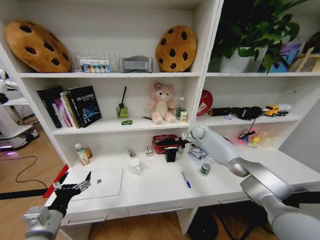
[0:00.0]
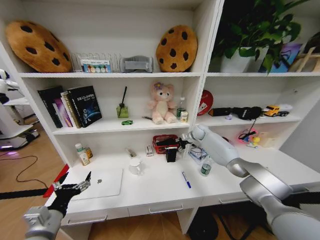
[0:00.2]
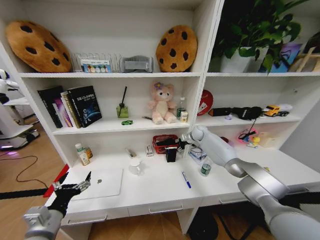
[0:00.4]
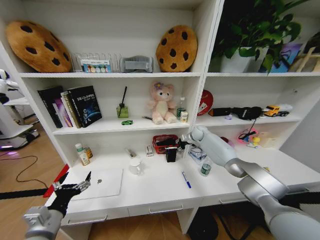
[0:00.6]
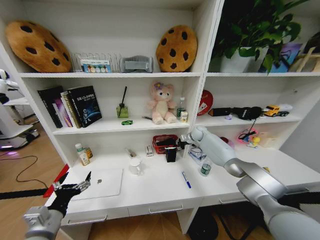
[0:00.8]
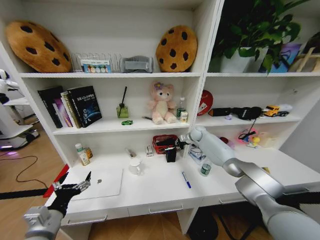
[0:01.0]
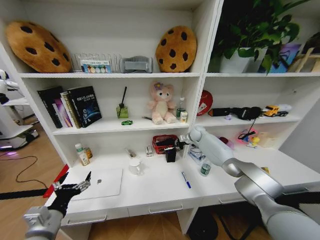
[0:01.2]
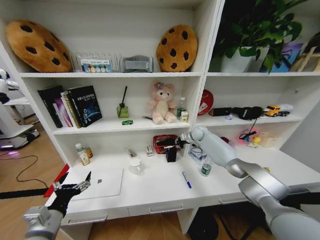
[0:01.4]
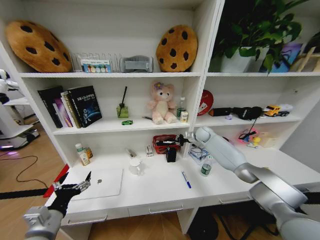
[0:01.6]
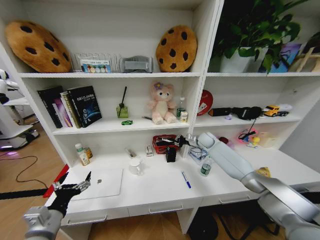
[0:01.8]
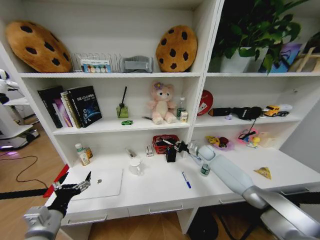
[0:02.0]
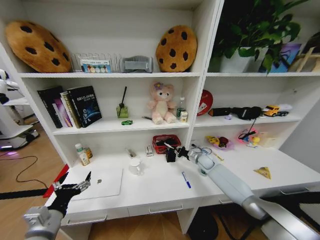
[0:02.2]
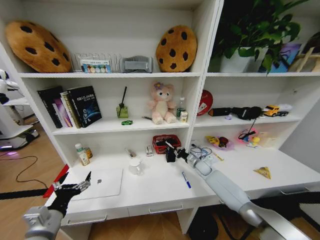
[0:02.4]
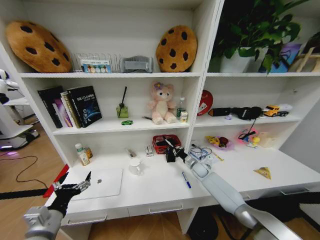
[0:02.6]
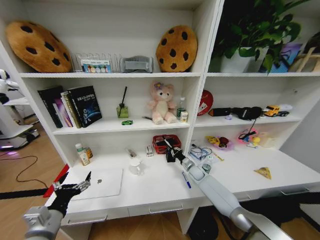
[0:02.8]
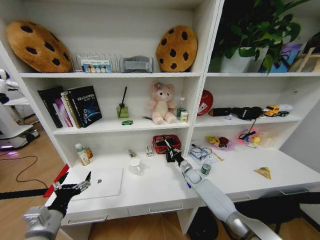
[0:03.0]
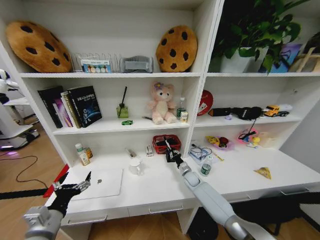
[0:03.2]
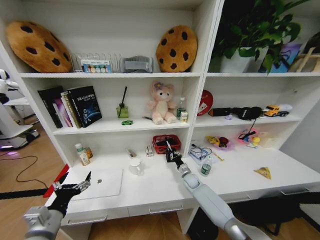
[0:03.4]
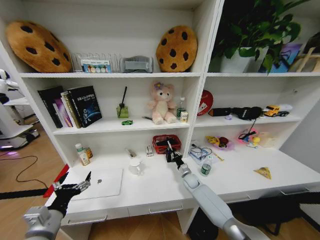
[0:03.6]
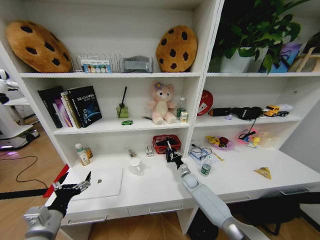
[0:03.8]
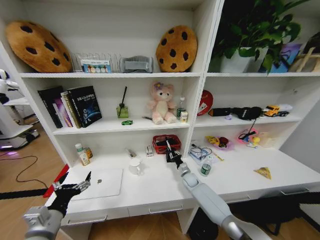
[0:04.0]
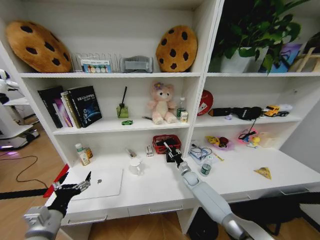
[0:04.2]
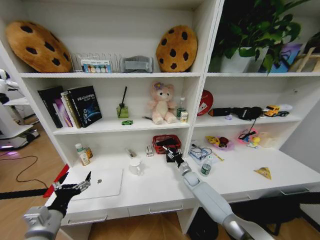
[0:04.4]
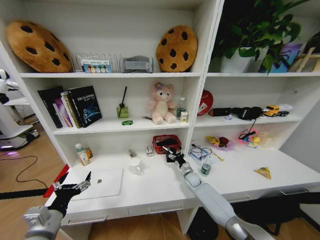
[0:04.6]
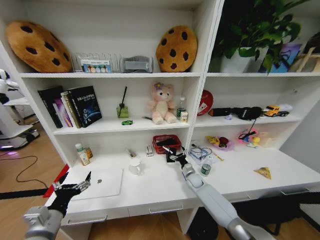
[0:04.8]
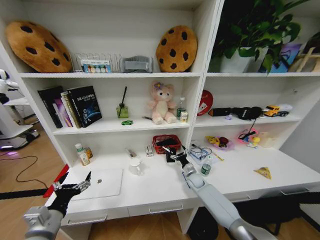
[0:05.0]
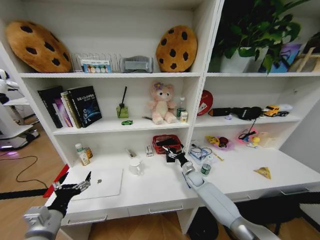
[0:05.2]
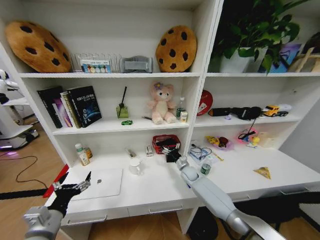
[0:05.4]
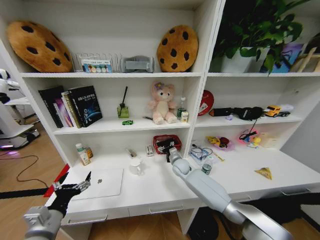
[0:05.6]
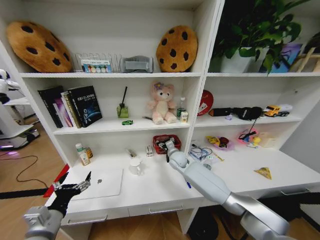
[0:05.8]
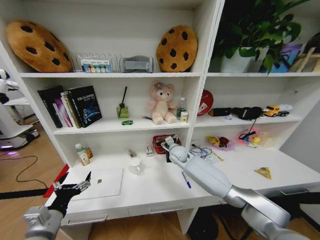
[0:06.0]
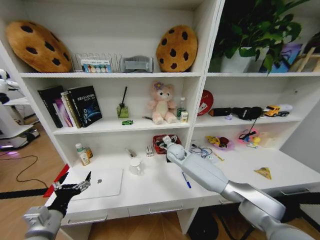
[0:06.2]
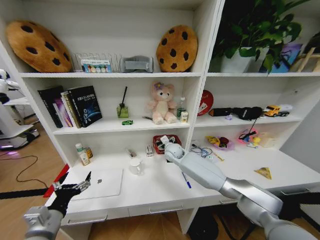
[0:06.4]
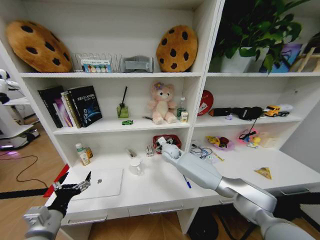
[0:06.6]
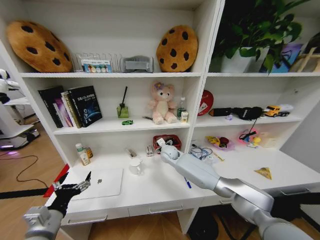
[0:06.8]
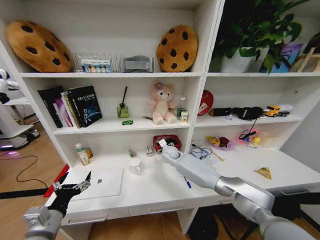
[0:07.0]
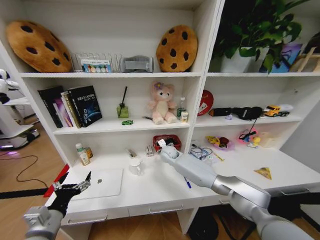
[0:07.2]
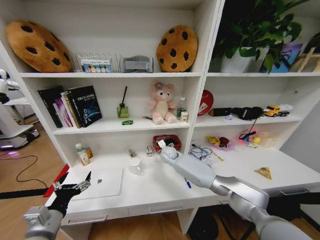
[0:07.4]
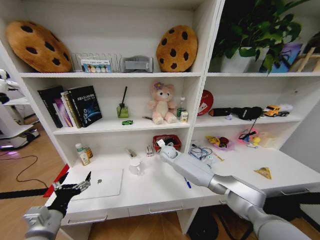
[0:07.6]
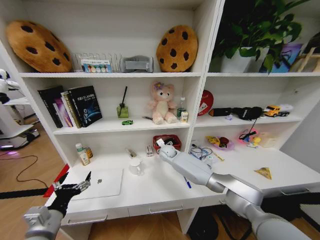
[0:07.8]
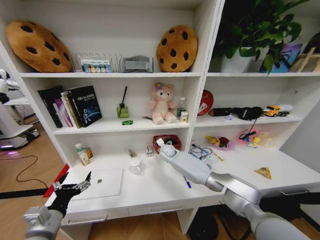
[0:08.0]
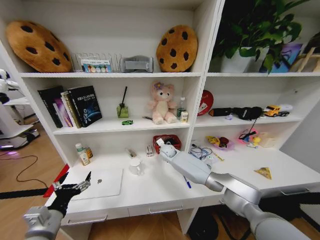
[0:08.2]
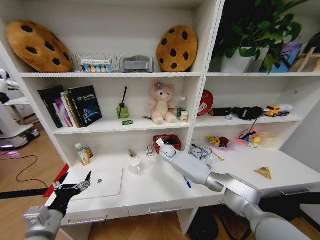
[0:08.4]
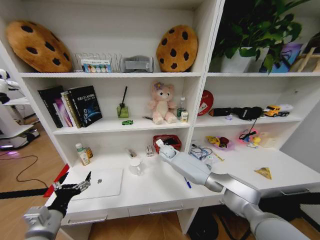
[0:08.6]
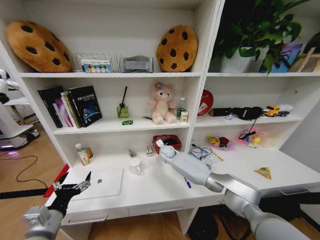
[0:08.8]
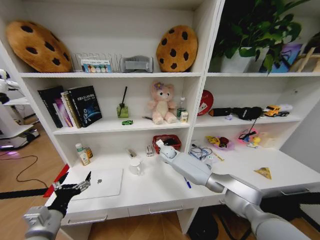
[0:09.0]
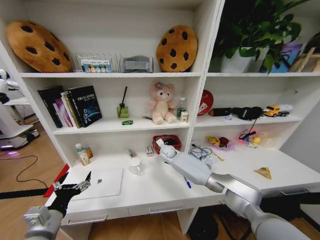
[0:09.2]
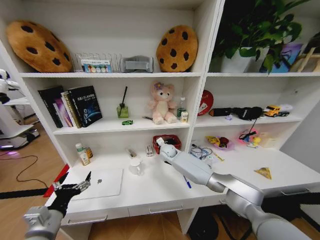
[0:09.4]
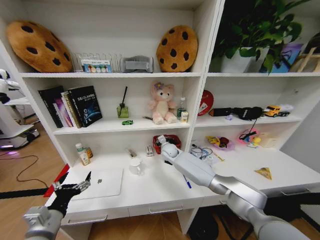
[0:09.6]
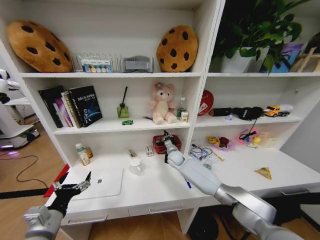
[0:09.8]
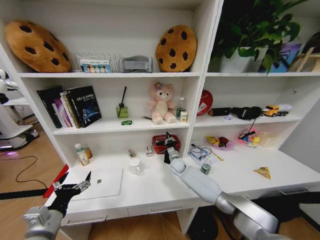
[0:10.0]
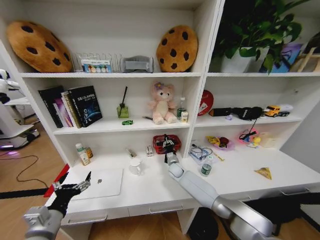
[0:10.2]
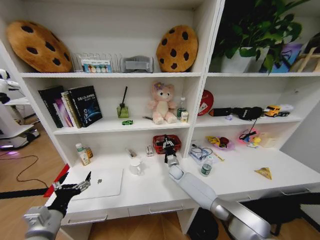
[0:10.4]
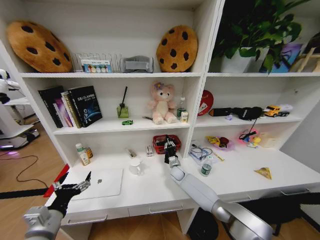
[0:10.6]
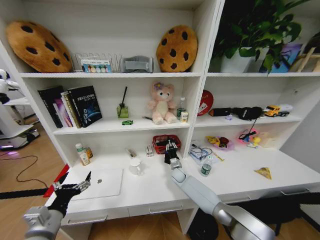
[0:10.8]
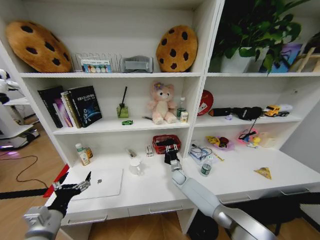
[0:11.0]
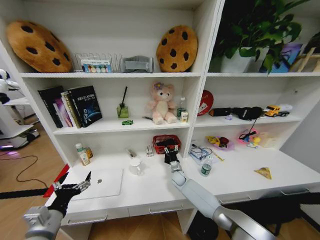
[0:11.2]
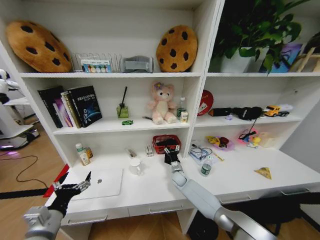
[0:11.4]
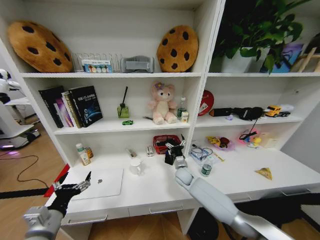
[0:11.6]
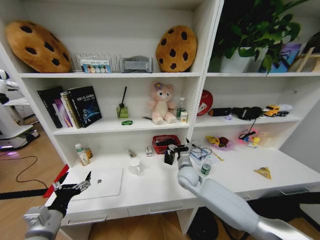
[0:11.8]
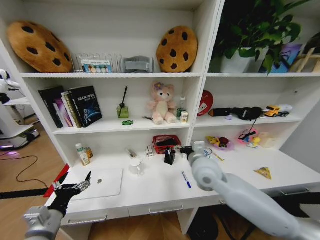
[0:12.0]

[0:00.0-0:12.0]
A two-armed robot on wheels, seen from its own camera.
Task of the whole recording: Organize the objects on the table.
0:00.0 to 0:01.6: The right gripper closes up.
0:01.6 to 0:03.0: The right gripper goes approximately 25 cm downward and backward.
0:03.0 to 0:04.4: The right gripper opens its fingers.
0:04.4 to 0:06.0: The right gripper is displaced upward and to the left by approximately 25 cm.
0:06.0 to 0:07.6: The right gripper moves roughly 5 cm.
0:07.6 to 0:09.0: The right gripper closes.
0:09.0 to 0:10.4: The right gripper is displaced downward and to the right by some 15 cm.
0:10.4 to 0:12.0: The right gripper moves upward and backward, approximately 30 cm, and opens.

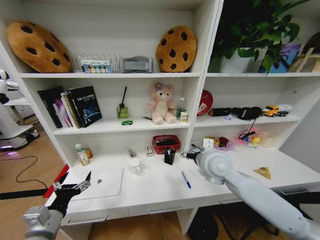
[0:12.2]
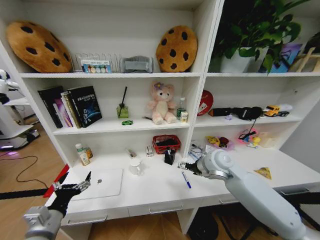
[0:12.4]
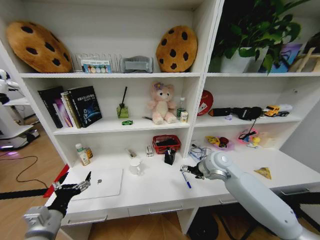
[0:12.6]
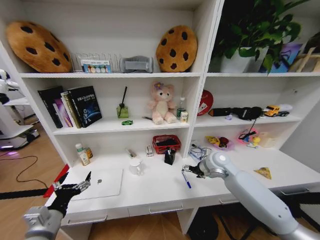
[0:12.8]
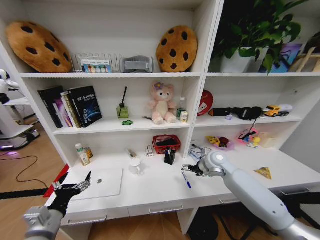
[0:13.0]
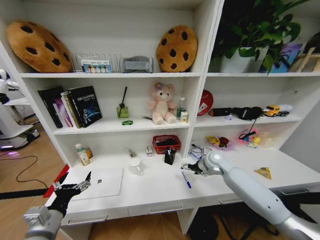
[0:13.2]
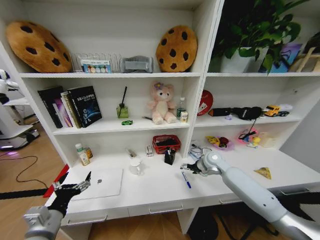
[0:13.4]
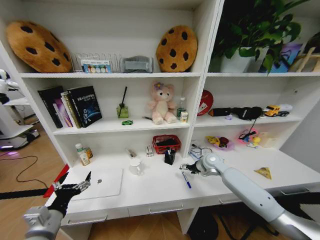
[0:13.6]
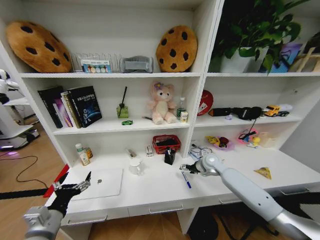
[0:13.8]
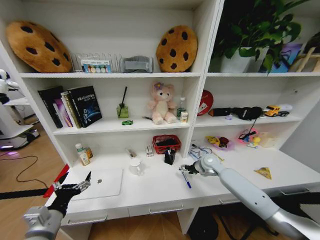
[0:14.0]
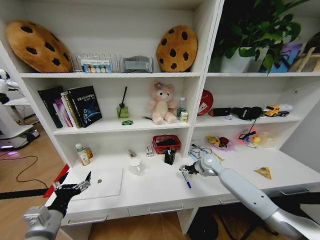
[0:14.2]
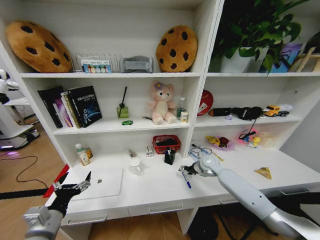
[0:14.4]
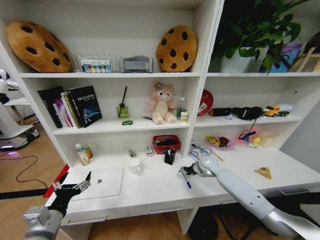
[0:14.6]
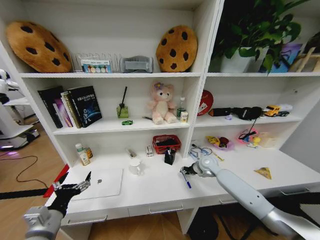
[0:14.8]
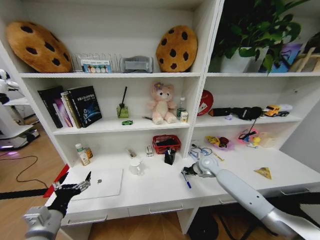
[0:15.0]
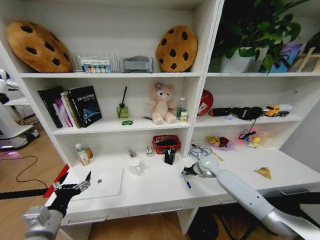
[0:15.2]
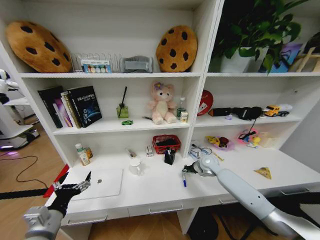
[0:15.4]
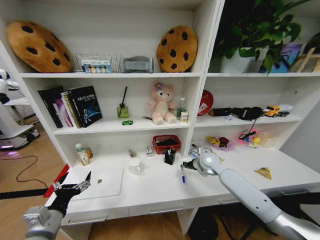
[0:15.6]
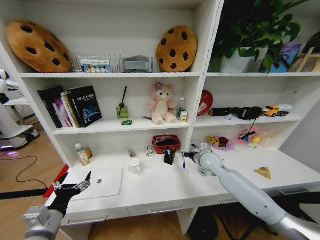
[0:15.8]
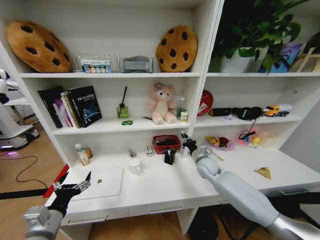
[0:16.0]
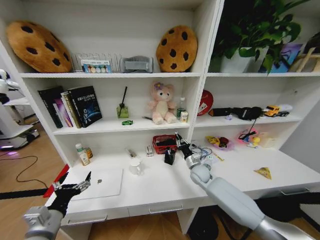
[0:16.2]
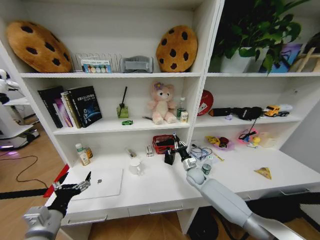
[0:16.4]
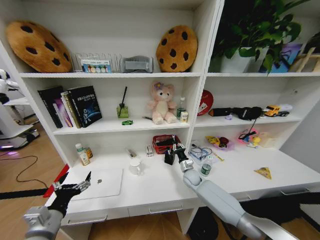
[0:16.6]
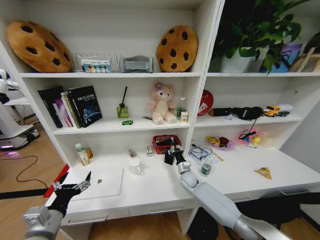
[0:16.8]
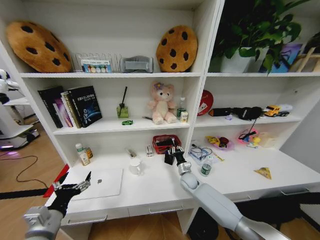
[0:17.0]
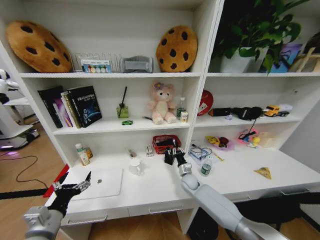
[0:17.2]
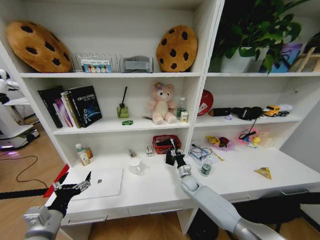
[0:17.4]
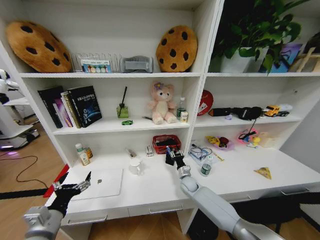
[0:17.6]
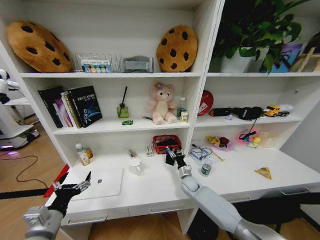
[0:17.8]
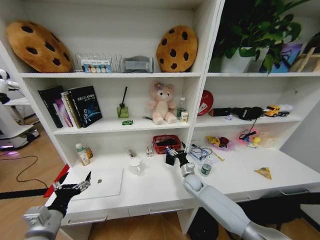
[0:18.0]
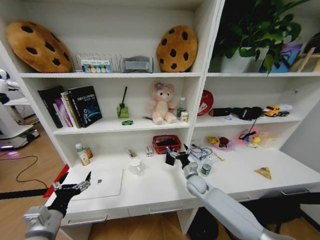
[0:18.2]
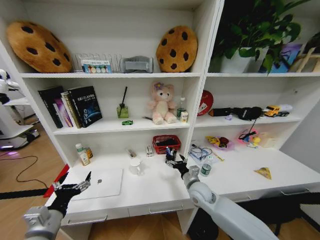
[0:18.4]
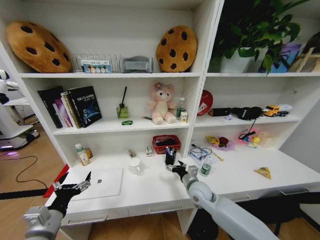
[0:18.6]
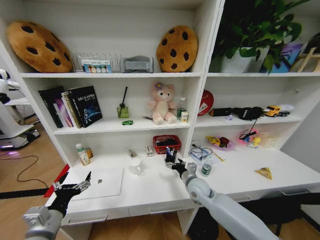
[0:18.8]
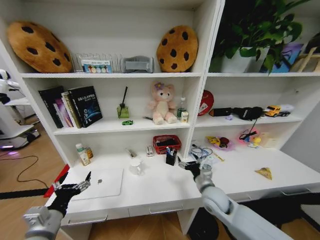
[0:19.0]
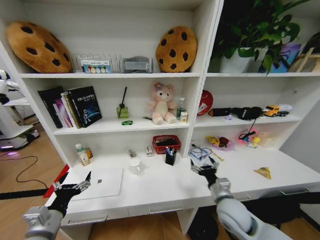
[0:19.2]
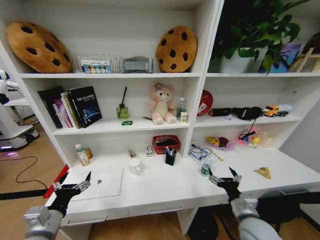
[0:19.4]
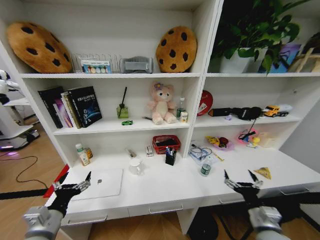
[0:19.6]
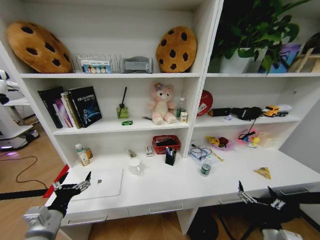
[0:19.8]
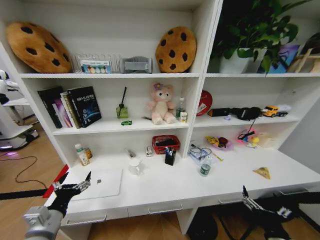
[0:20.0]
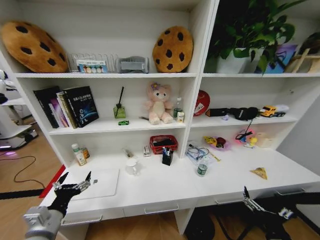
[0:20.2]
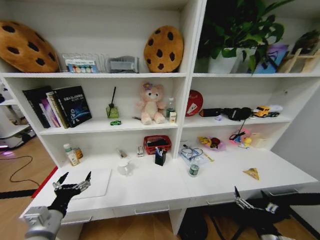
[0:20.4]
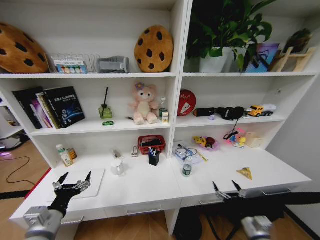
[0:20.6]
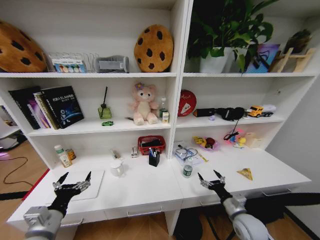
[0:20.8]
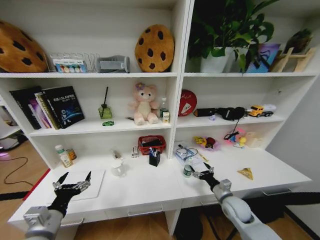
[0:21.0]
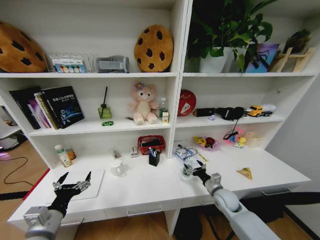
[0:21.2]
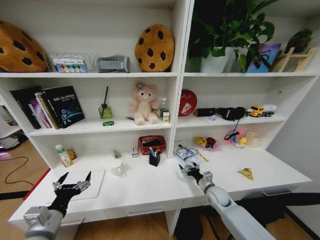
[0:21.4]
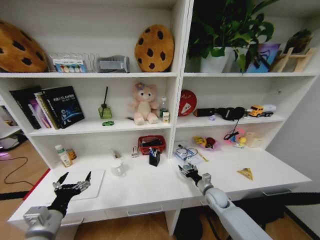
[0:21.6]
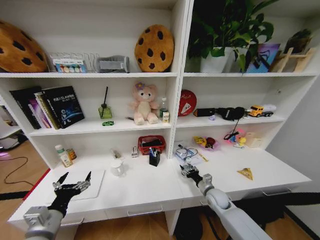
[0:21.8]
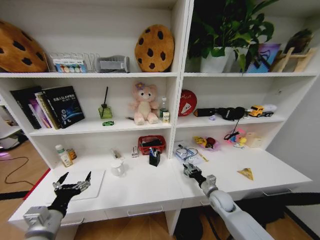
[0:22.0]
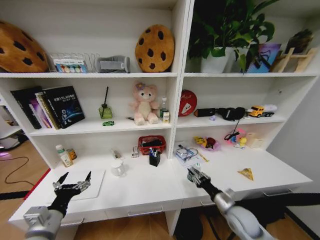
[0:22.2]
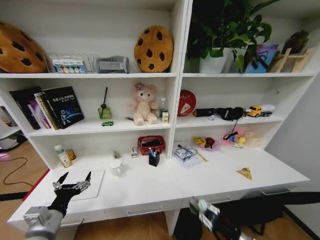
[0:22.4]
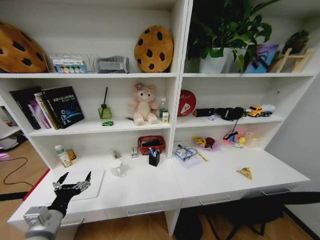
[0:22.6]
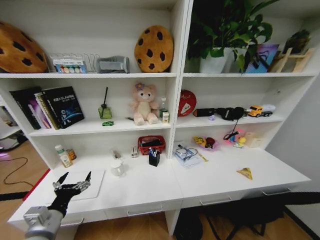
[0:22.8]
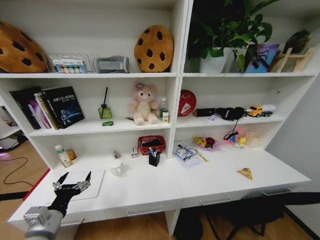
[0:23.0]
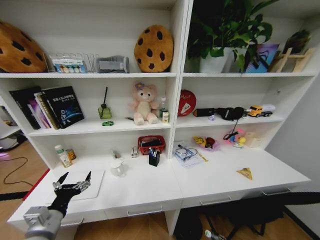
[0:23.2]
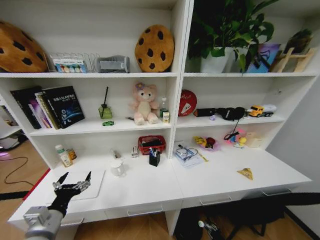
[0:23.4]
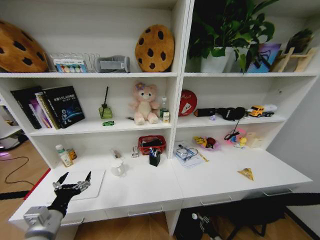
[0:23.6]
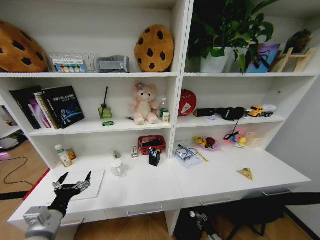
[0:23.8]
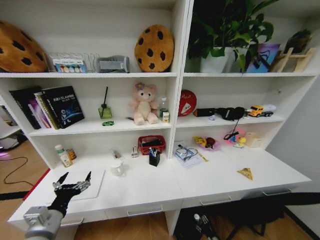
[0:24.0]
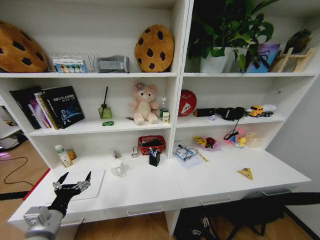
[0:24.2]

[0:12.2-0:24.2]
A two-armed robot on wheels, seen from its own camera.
Task of the whole recording: Organize the objects on the table.
0:12.2 to 0:13.8: The right gripper travels downward, forward and to the right by about 20 cm.
0:13.8 to 0:15.2: The right gripper closes its fingers.
0:15.2 to 0:16.6: The right gripper goes about 15 cm downward and to the left.
0:16.6 to 0:18.2: The right gripper travels backward by about 5 cm, and opens up.
0:18.2 to 0:19.8: The right gripper travels backward and to the right by roughly 30 cm.
0:19.8 to 0:21.2: The right gripper goes some 20 cm forward.
0:21.2 to 0:22.6: The right gripper goes approximately 30 cm backward, and closes.
0:22.6 to 0:24.2: The right gripper travels downward by roughly 25 cm, and opens its fingers.
